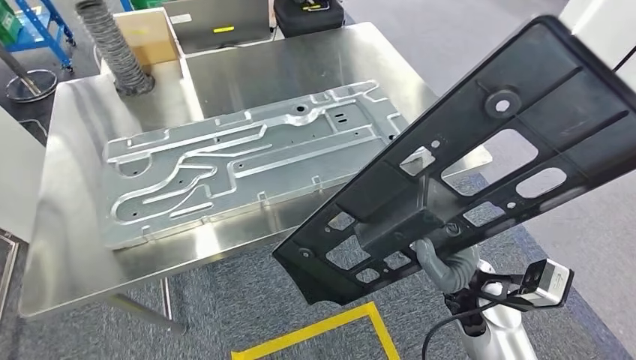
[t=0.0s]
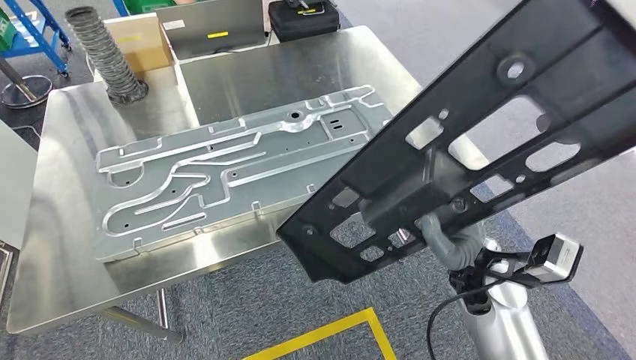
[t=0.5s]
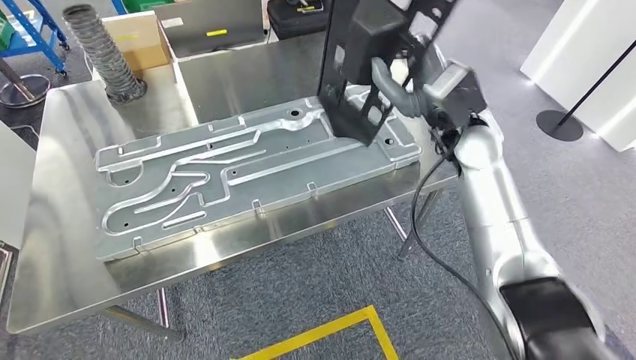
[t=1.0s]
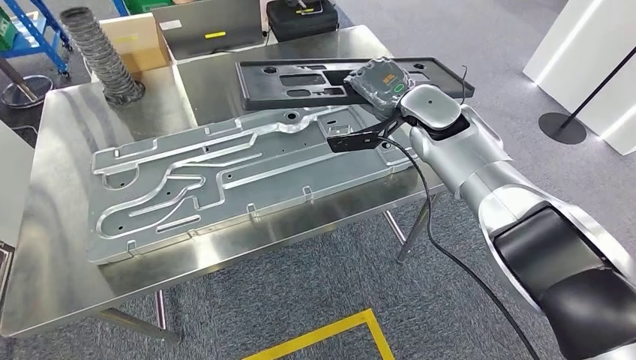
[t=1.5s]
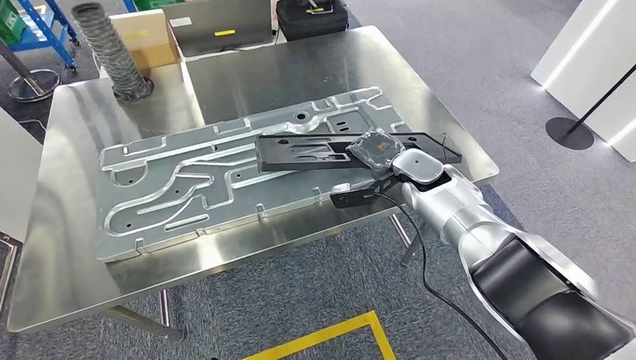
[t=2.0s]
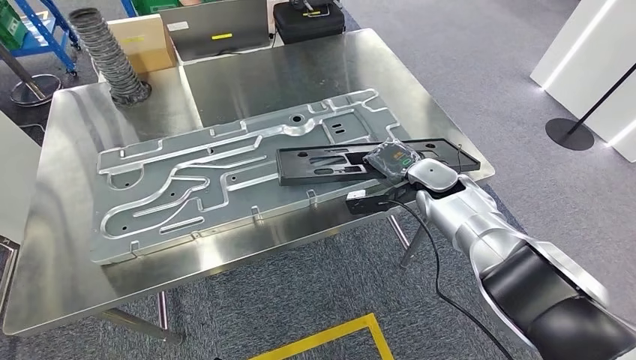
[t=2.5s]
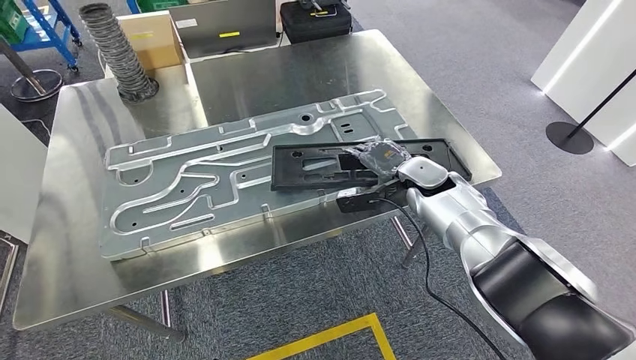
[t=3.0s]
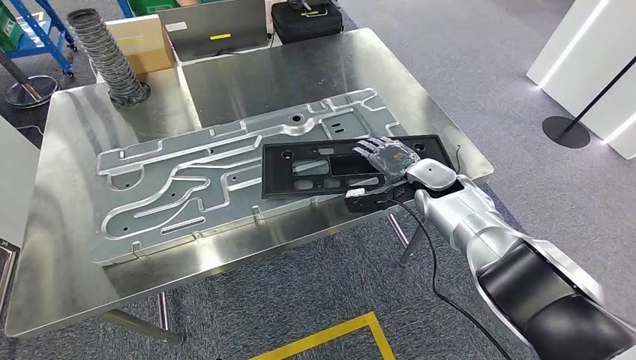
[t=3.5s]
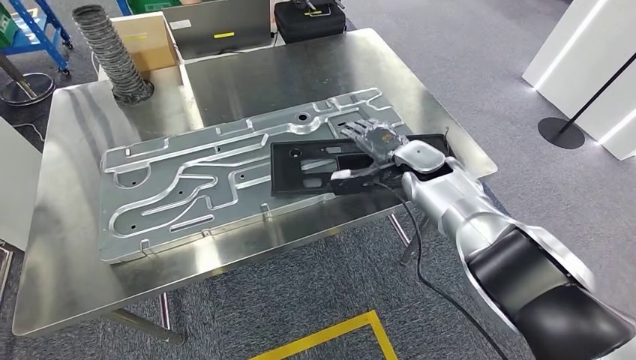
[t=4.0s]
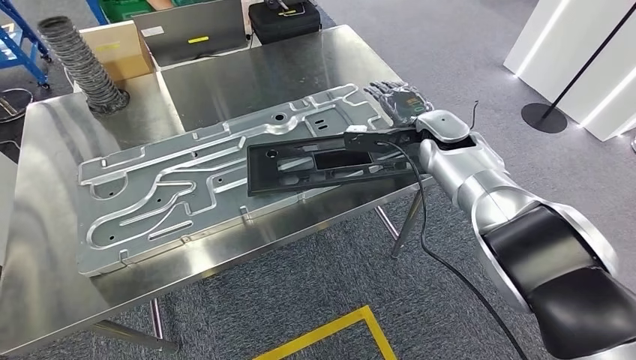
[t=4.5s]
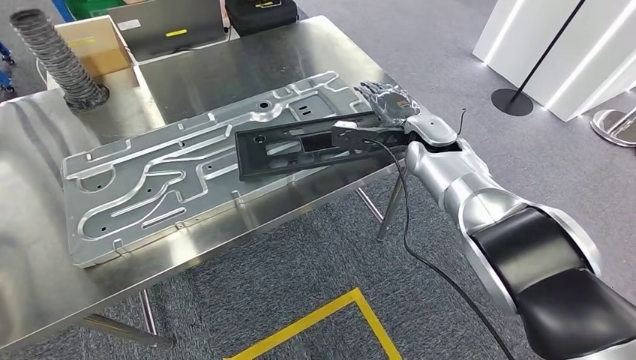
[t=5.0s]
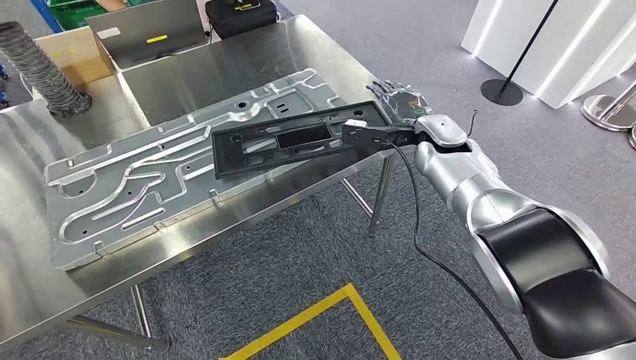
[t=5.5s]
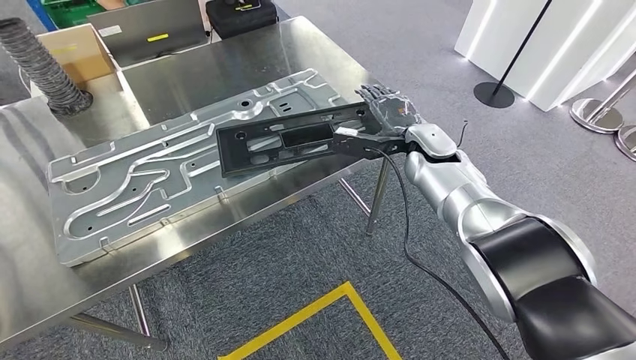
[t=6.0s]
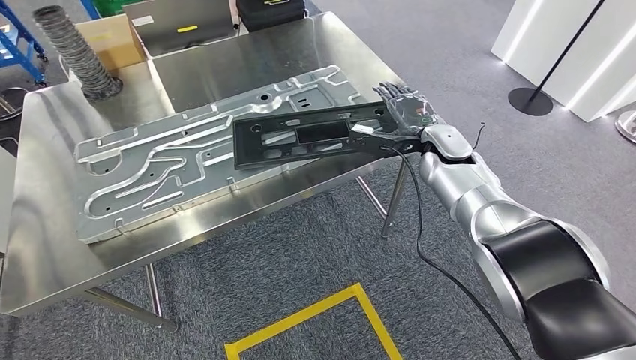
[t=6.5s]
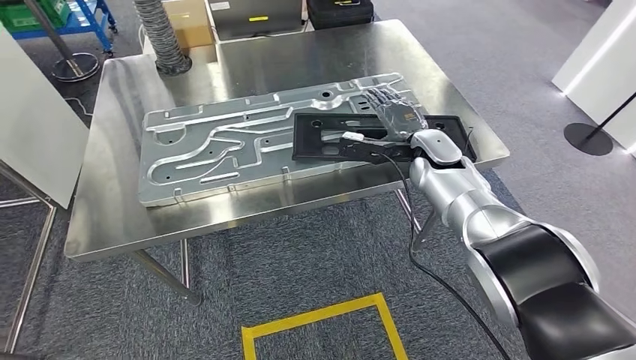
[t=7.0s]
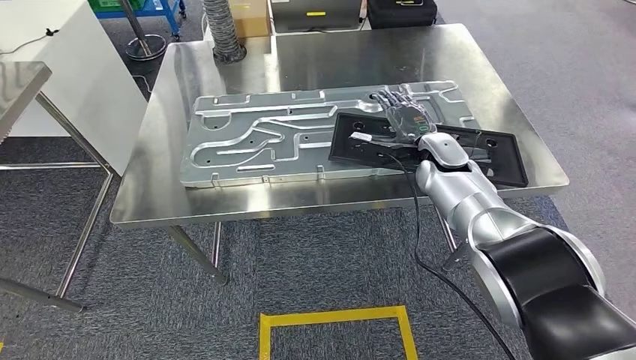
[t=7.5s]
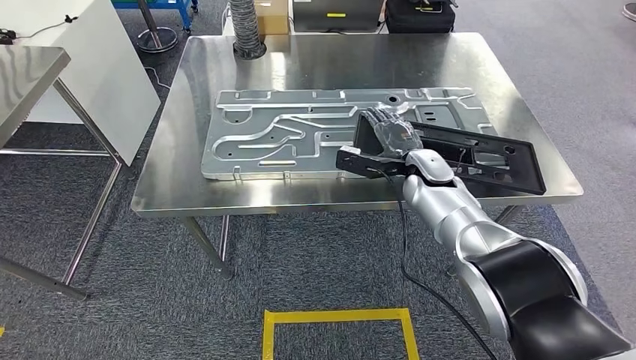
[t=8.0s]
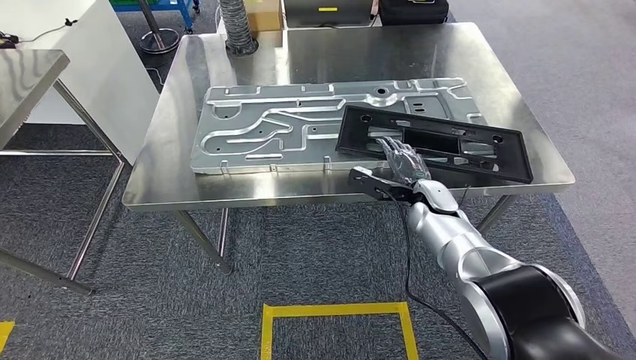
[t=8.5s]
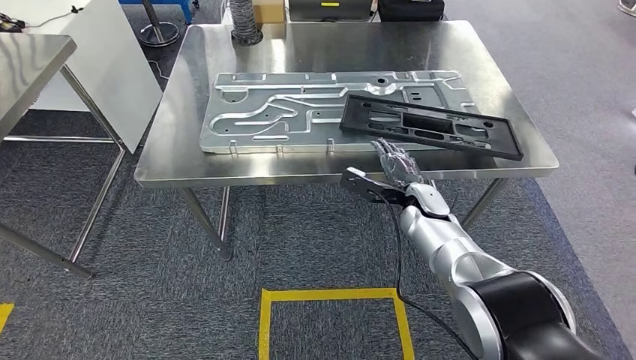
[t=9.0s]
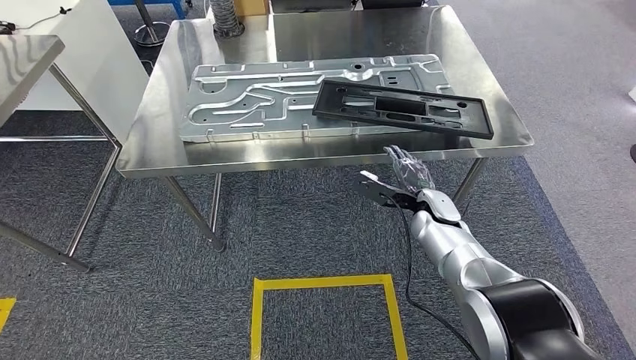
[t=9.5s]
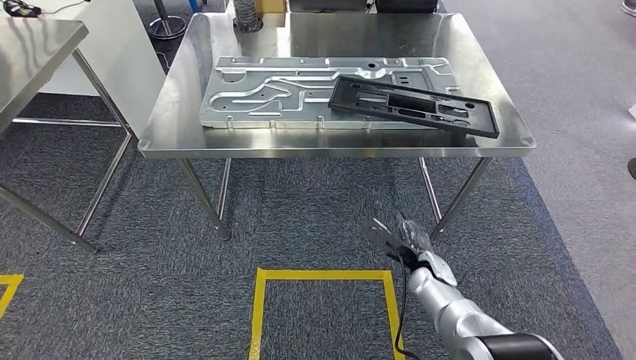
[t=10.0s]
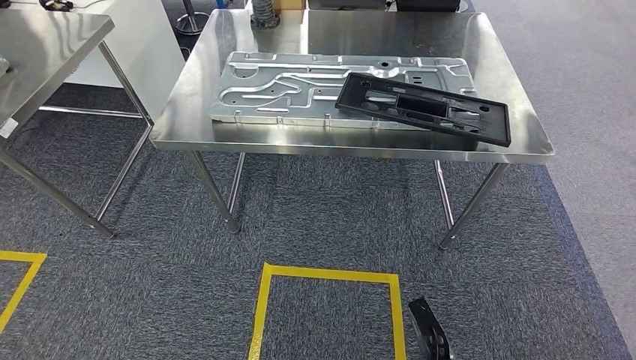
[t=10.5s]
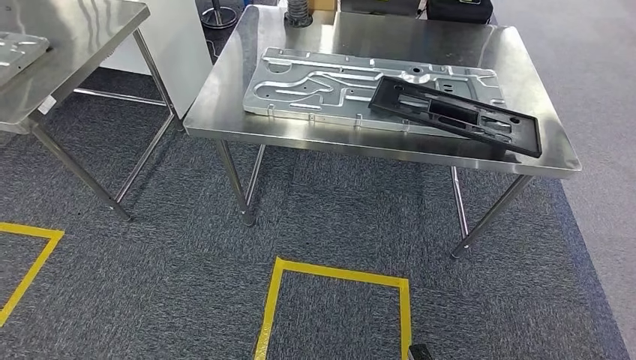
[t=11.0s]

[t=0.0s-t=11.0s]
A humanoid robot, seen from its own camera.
Step, t=1.5s to t=4.0s: Insert the large material into the corresponding slot on the workbench.

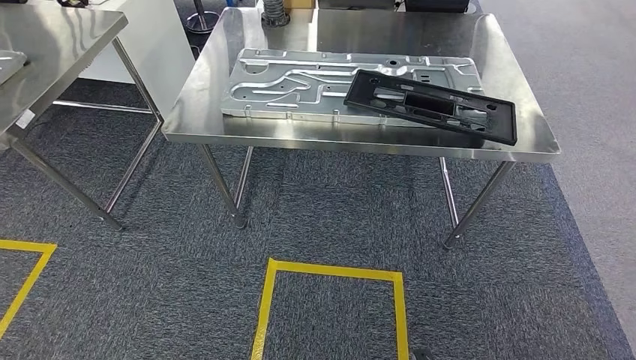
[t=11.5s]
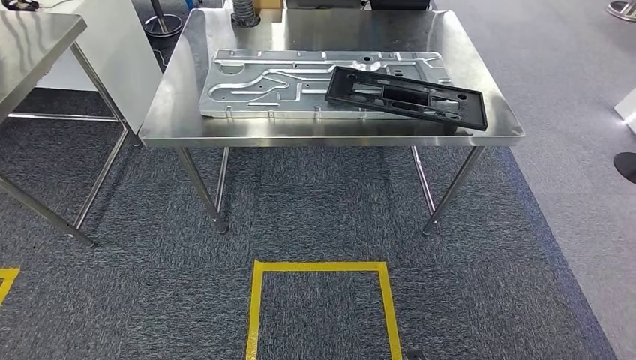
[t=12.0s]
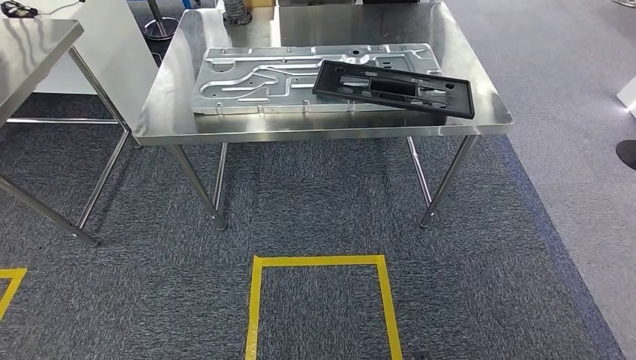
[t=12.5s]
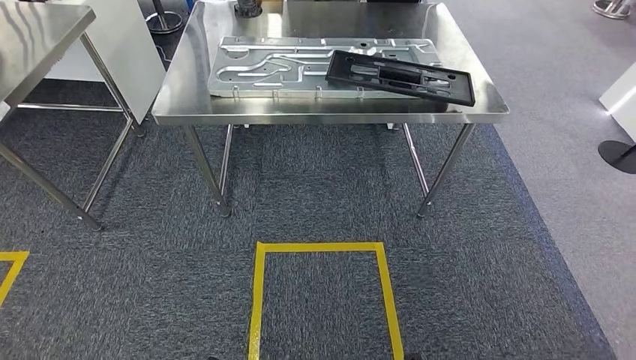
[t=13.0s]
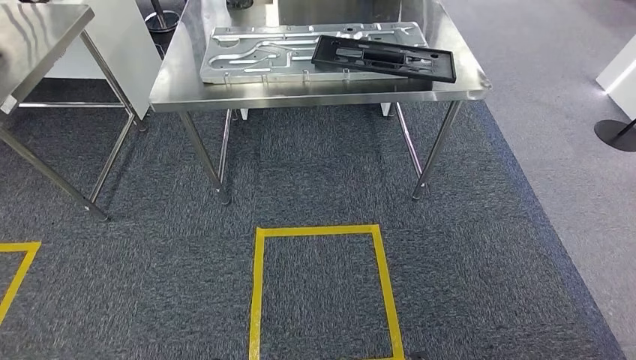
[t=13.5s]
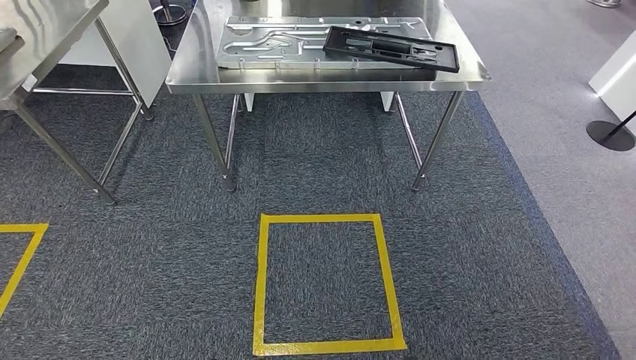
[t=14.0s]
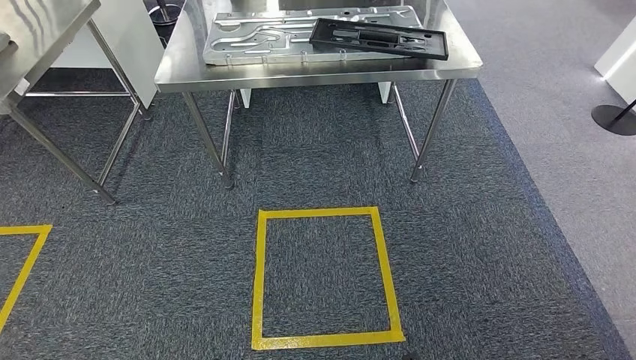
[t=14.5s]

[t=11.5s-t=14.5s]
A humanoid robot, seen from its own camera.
Step, t=11.5s to t=14.5s: Return to the initial position at the shelf.

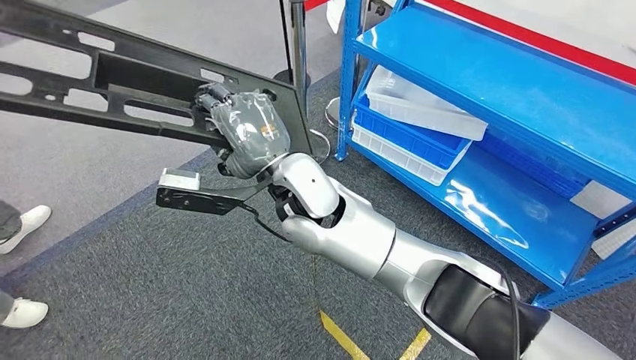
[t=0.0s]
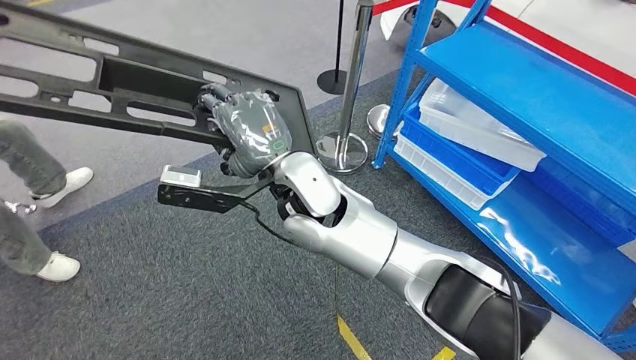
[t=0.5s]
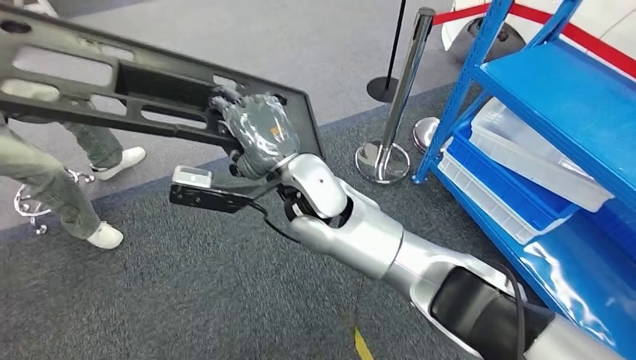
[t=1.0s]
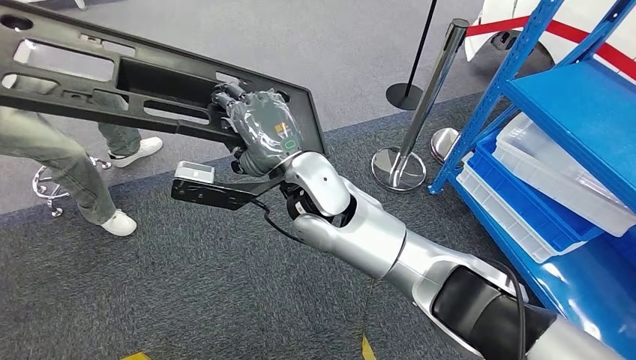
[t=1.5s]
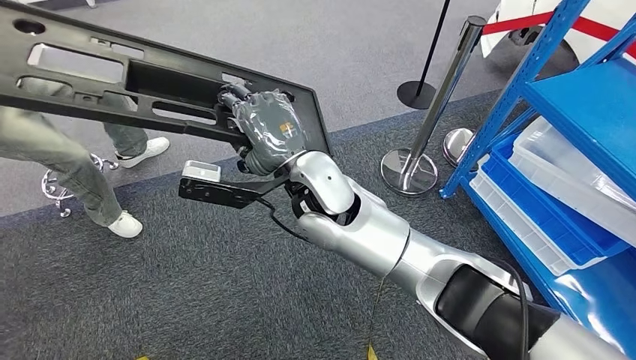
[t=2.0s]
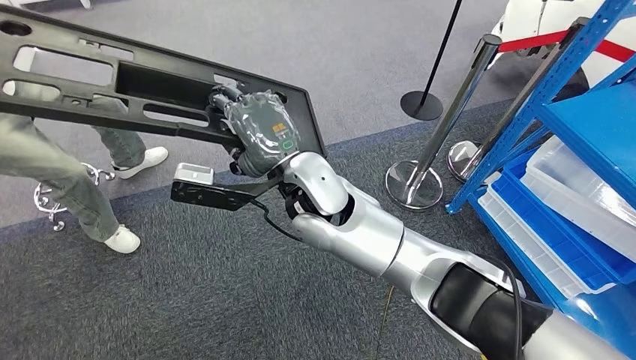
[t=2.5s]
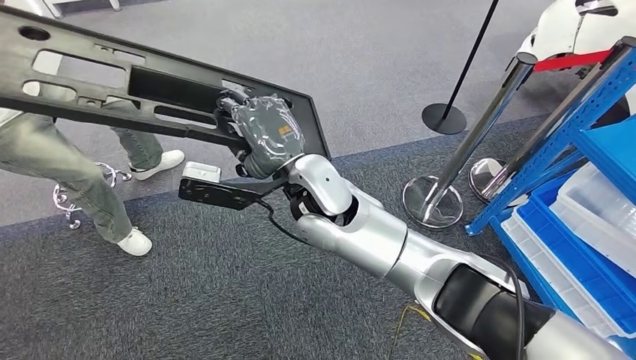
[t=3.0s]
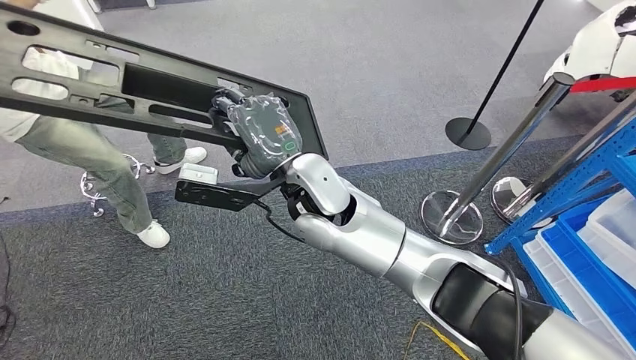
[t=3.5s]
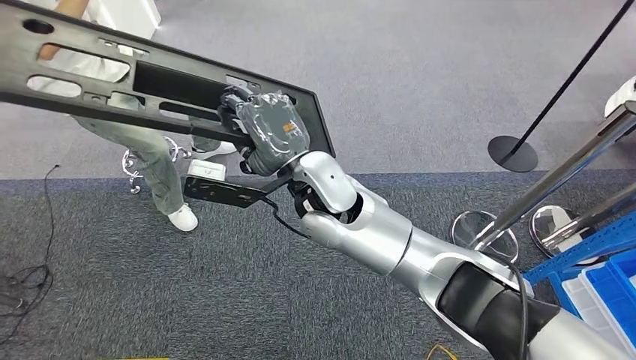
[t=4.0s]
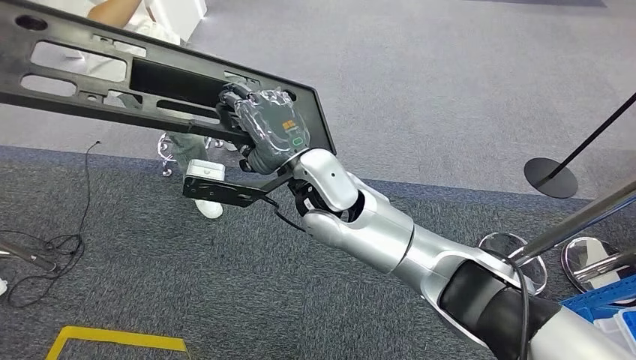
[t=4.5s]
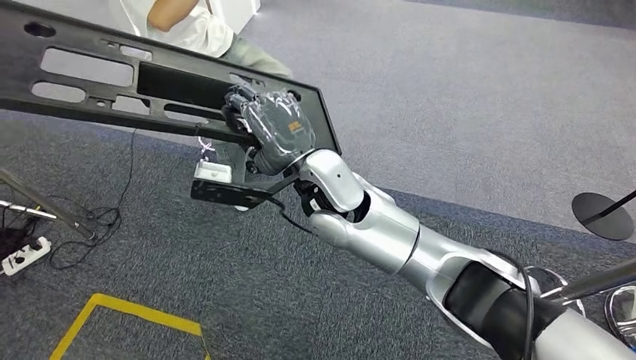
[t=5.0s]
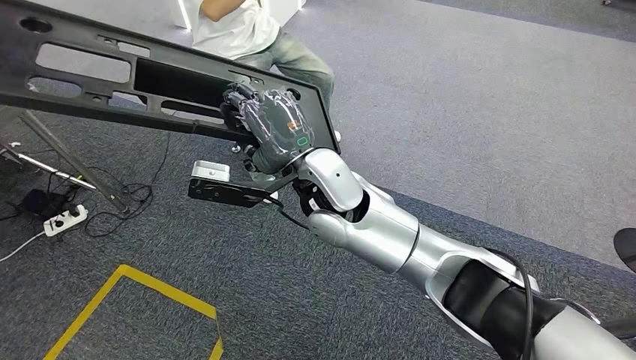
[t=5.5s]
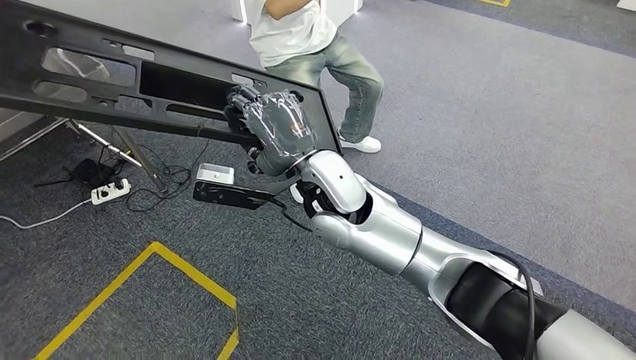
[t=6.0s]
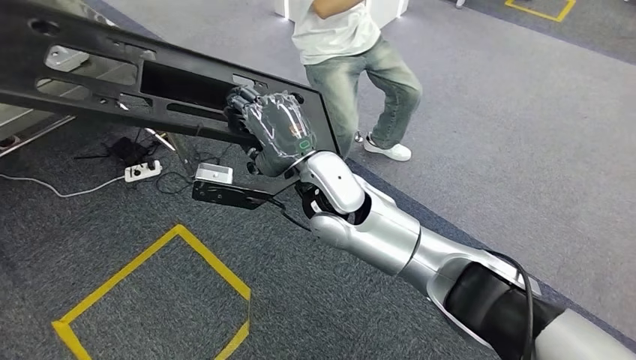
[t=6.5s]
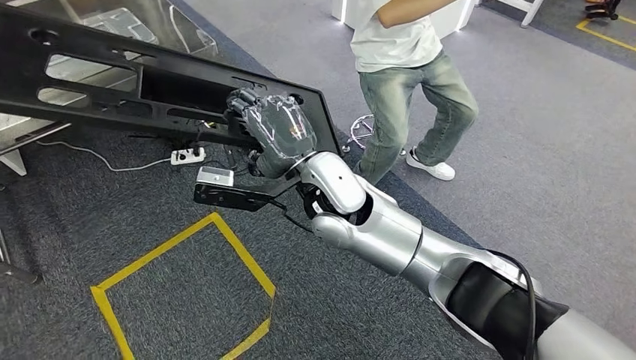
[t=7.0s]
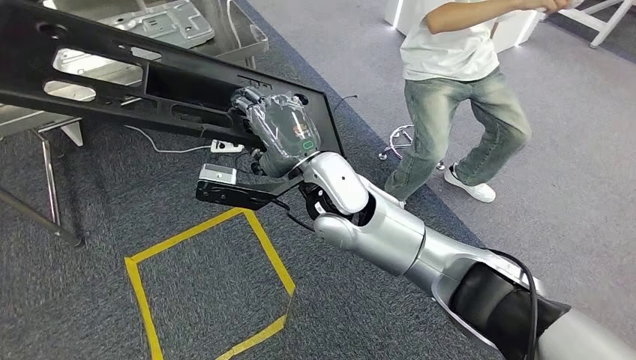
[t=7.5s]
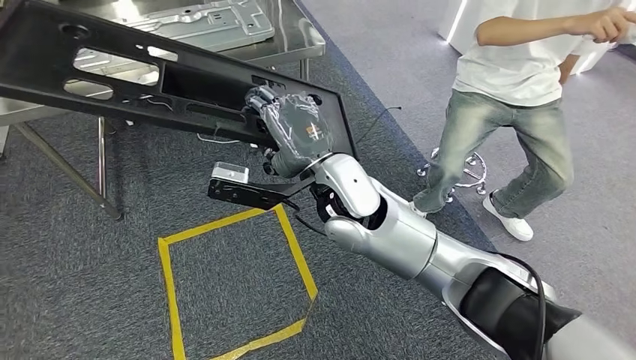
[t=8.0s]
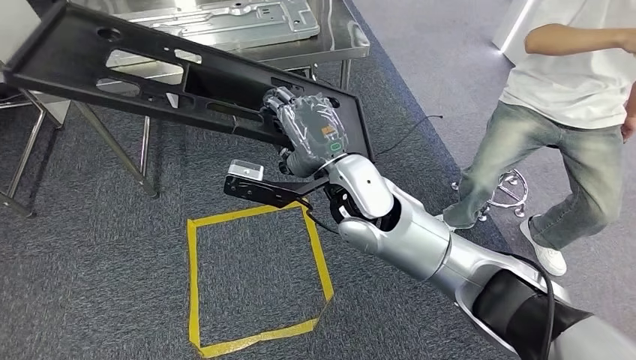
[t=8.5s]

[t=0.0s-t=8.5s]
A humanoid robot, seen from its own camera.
Step, t=0.0s to t=8.0s: Move the large material to the workbench.
